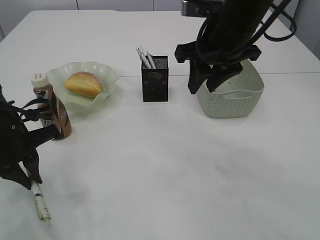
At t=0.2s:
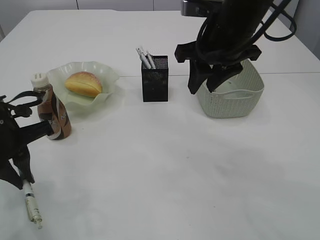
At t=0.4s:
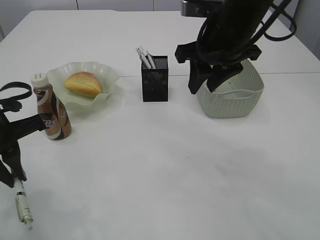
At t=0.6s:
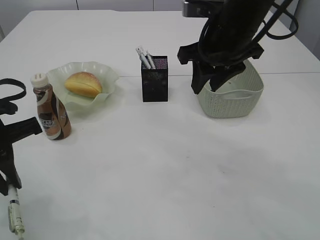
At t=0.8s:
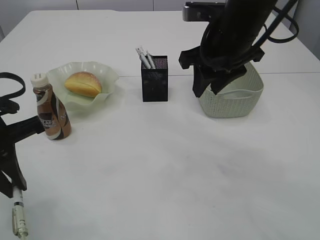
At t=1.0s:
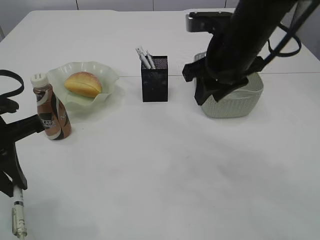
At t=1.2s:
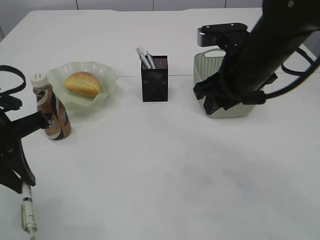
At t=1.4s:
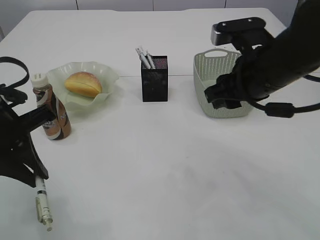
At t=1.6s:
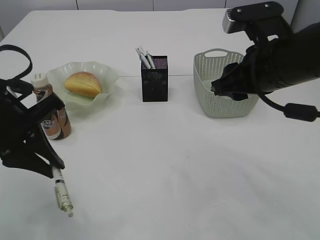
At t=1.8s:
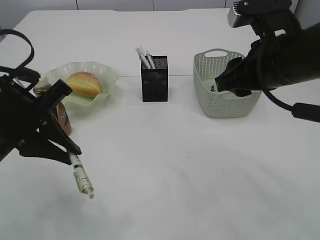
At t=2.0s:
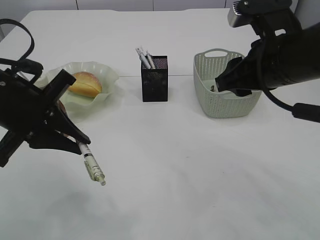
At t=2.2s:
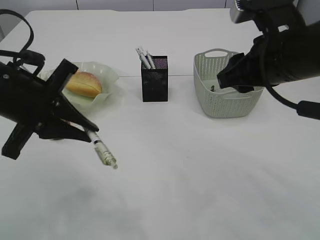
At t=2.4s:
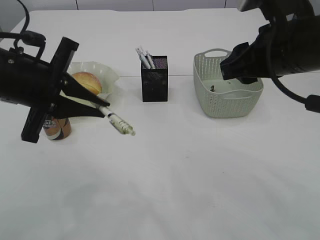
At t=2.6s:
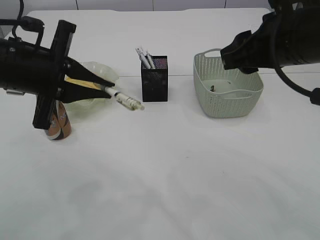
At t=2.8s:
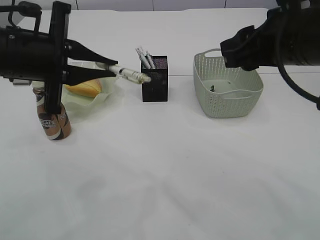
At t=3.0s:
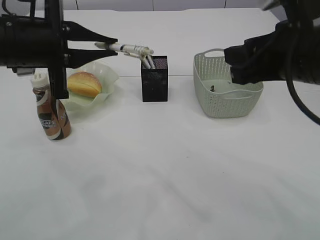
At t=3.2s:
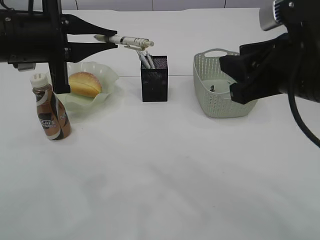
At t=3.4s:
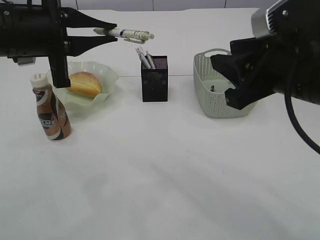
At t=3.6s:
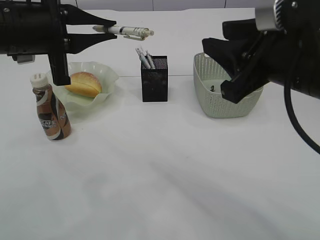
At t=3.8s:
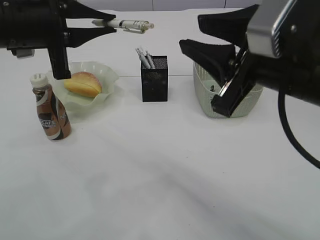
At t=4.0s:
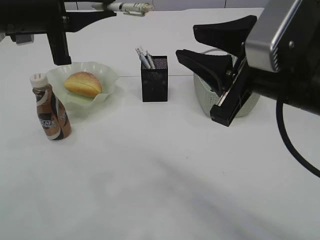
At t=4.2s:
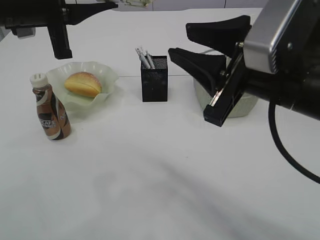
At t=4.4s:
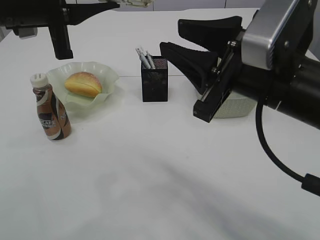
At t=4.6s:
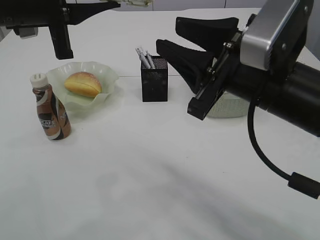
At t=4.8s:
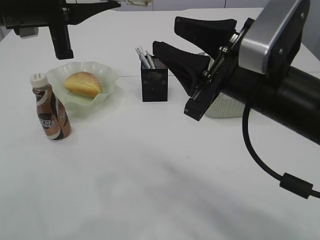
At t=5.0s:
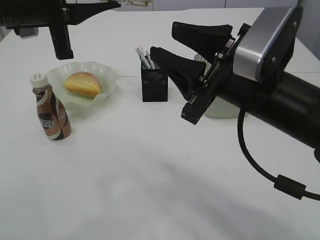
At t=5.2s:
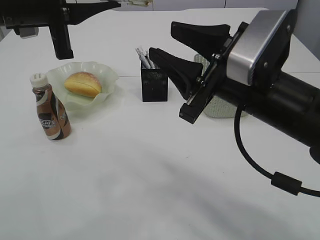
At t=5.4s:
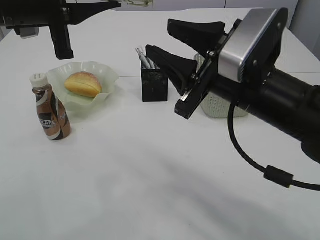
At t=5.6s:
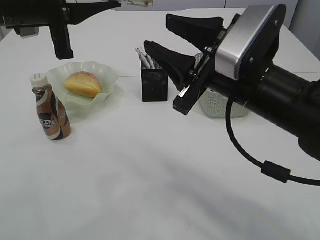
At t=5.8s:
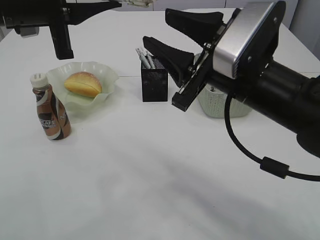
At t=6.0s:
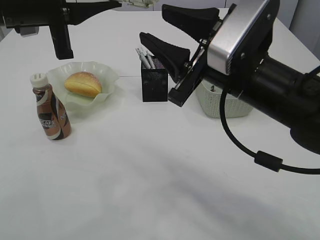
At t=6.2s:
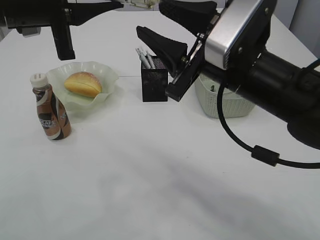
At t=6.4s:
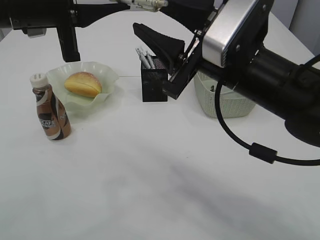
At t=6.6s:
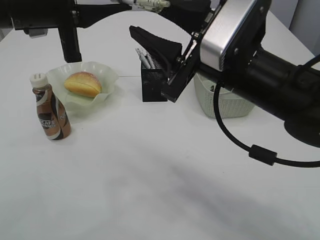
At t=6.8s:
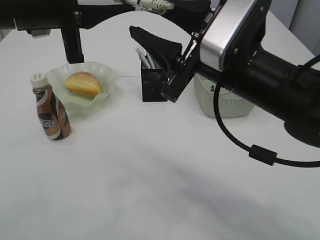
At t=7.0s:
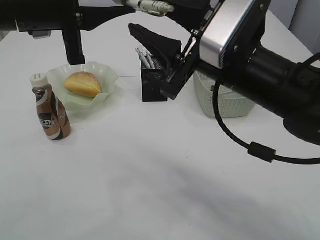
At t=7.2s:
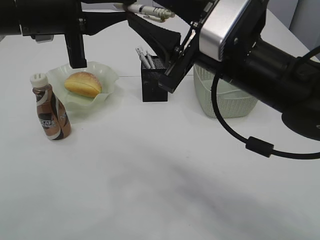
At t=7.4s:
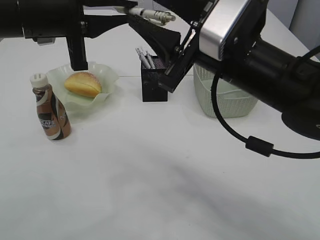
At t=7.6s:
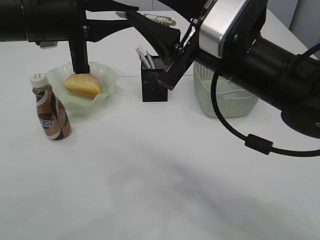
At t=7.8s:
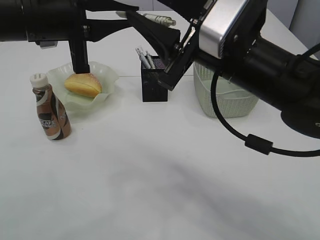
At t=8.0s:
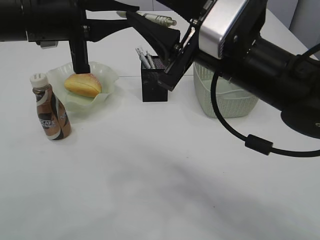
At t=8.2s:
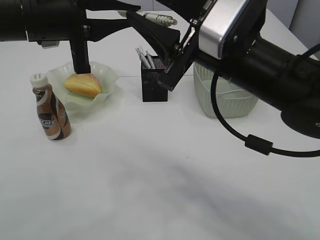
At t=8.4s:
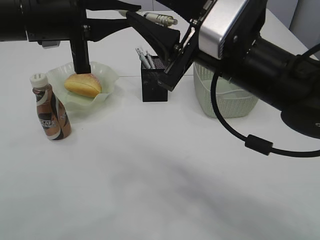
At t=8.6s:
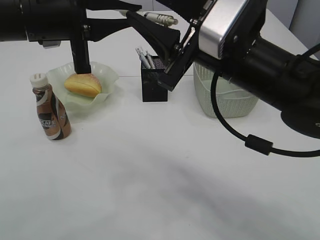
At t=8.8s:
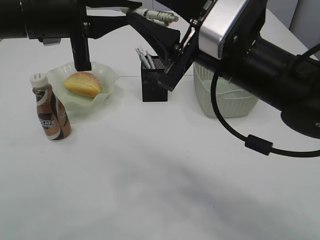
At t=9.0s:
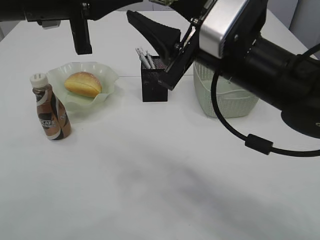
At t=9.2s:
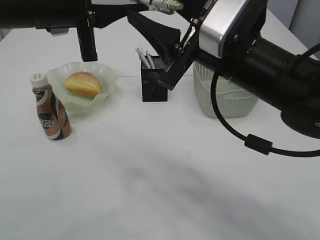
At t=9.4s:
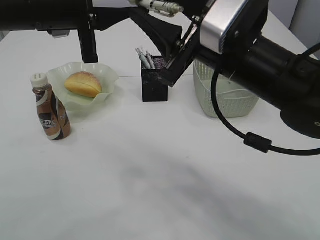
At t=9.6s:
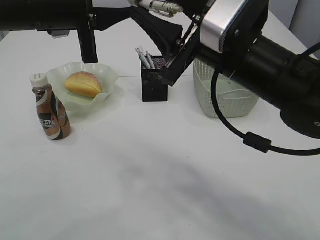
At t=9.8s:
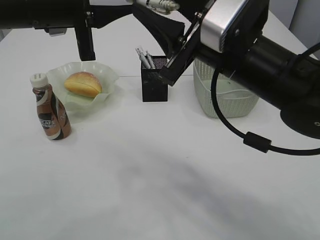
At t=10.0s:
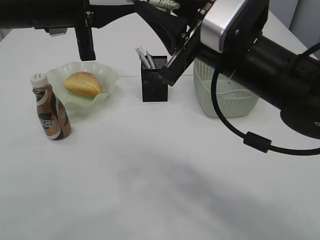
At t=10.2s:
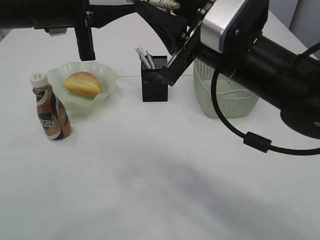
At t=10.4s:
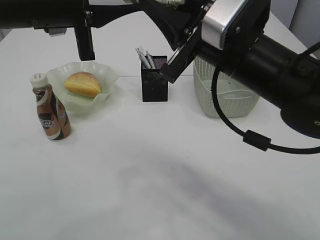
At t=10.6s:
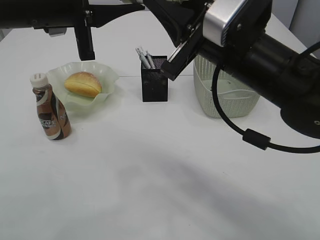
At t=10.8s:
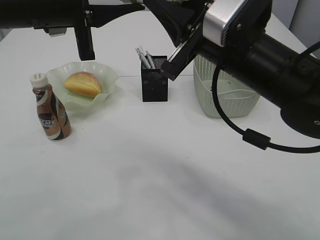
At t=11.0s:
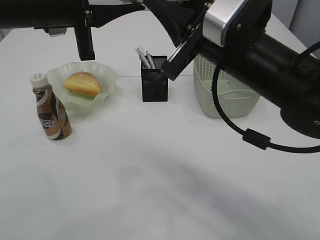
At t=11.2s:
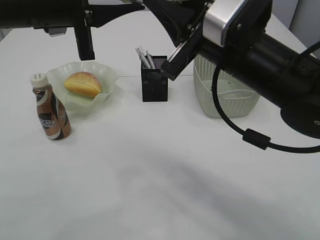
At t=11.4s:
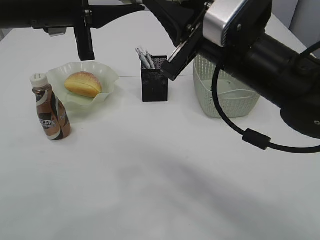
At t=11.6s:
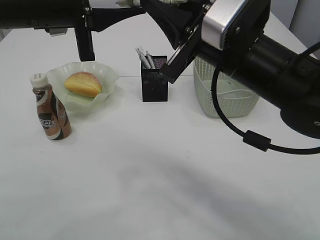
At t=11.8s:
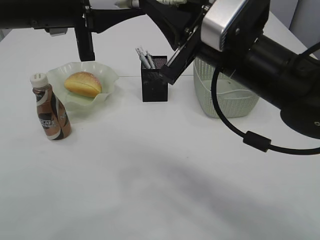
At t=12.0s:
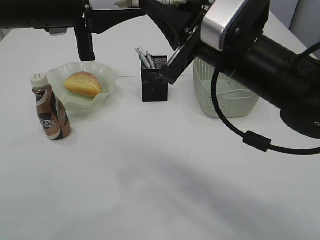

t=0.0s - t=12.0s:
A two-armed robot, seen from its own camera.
t=0.0s - t=1.6s: The right gripper moves backward, some 5 cm, while the left gripper heads upward, covering approximately 5 cm.
t=1.6s - t=3.0s: The left gripper is displaced upward by roughly 5 cm.
t=3.0s - t=4.4s: The right gripper changes place by about 5 cm.
t=4.4s - t=6.0s: There are only small adjustments of the grippers.
t=7.6s - t=9.0s: The grippers make only small movements.
t=9.0s - t=10.4s: The right gripper closes its fingers.
t=10.4s - t=12.0s: The two grippers keep their place.

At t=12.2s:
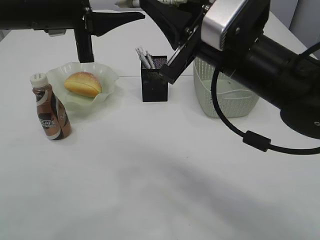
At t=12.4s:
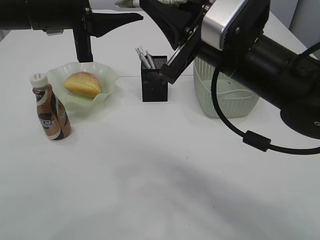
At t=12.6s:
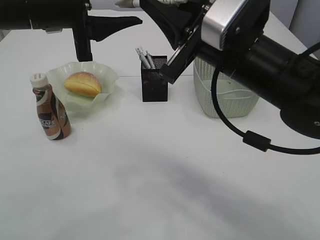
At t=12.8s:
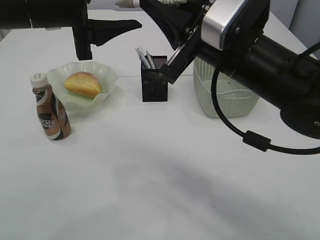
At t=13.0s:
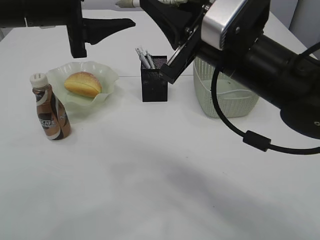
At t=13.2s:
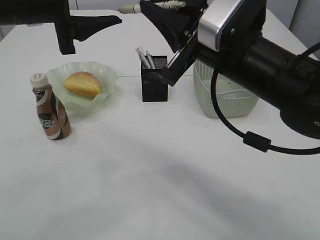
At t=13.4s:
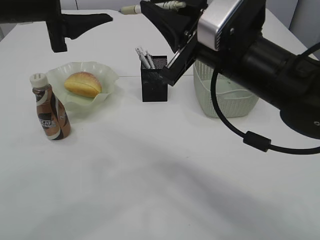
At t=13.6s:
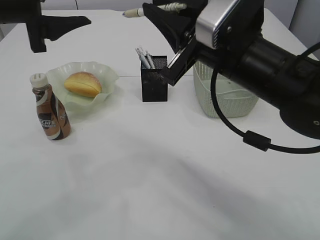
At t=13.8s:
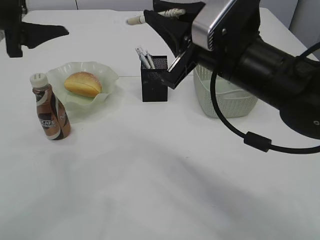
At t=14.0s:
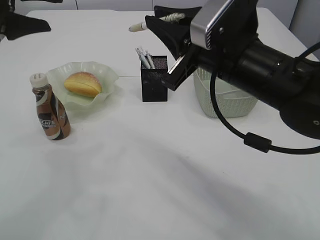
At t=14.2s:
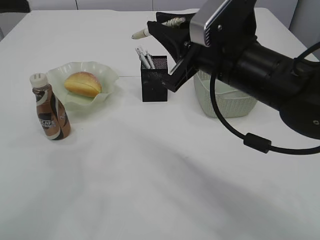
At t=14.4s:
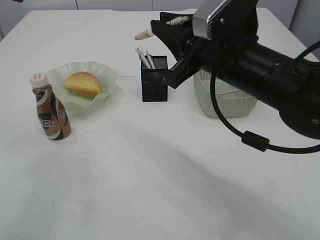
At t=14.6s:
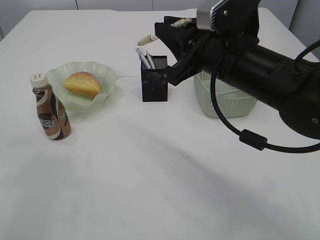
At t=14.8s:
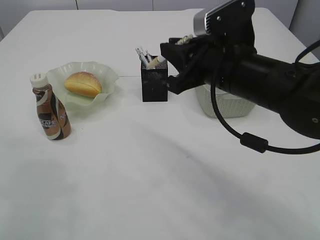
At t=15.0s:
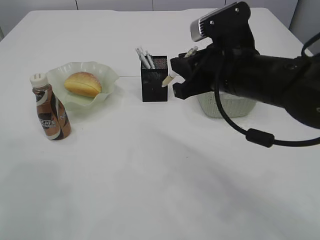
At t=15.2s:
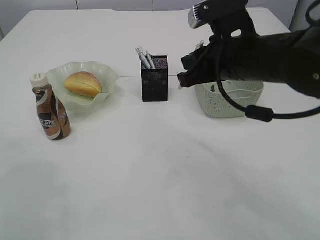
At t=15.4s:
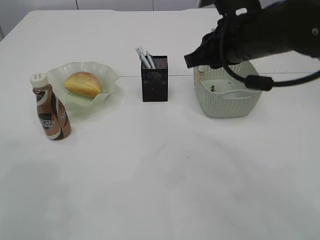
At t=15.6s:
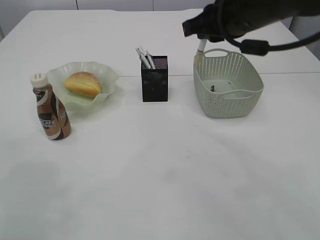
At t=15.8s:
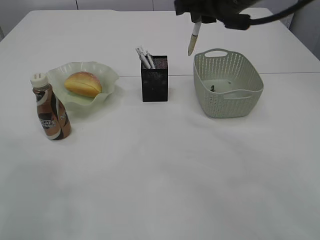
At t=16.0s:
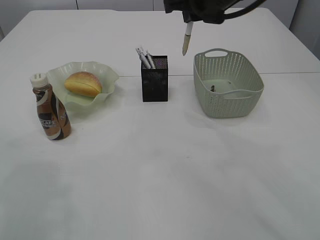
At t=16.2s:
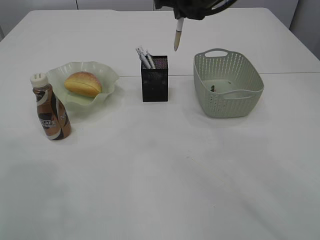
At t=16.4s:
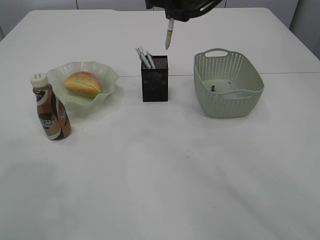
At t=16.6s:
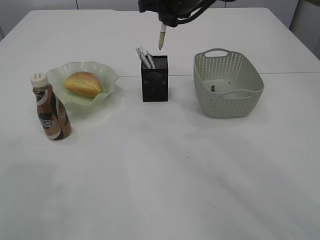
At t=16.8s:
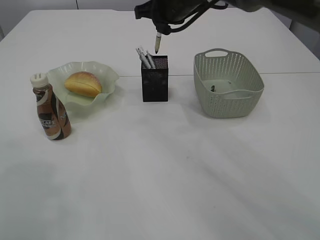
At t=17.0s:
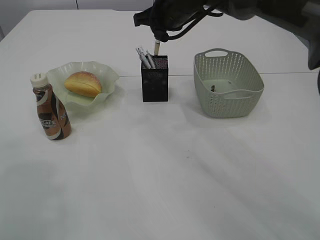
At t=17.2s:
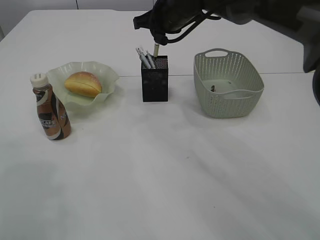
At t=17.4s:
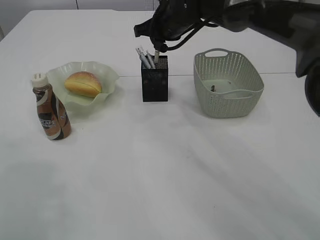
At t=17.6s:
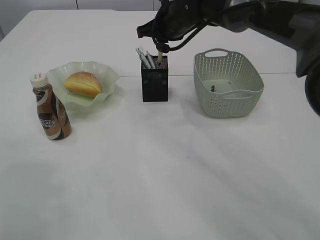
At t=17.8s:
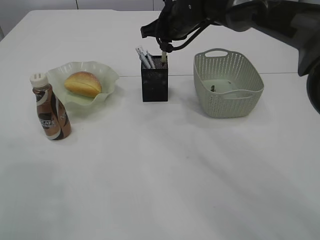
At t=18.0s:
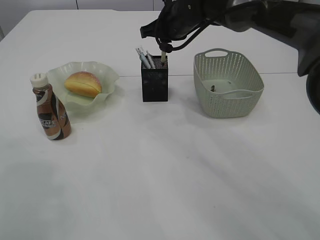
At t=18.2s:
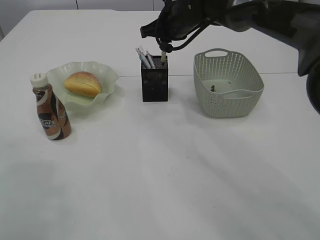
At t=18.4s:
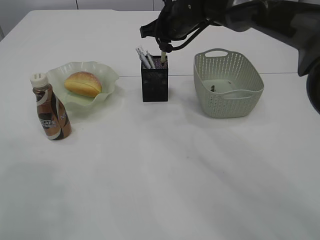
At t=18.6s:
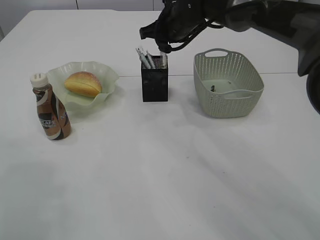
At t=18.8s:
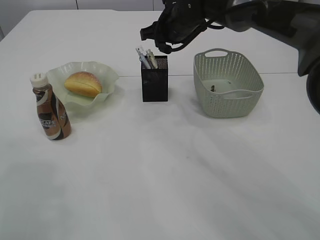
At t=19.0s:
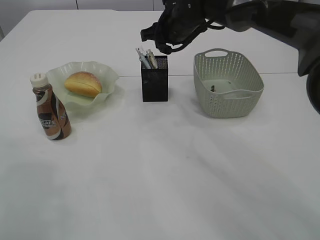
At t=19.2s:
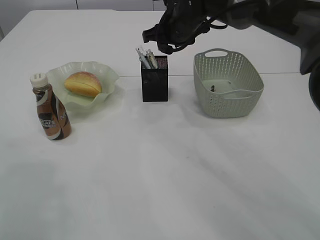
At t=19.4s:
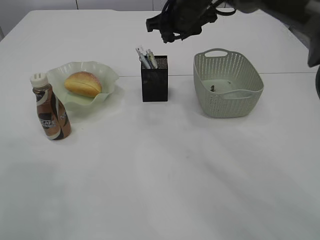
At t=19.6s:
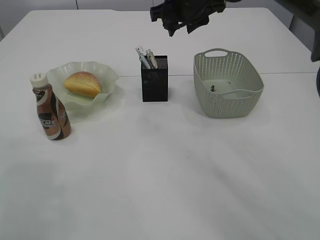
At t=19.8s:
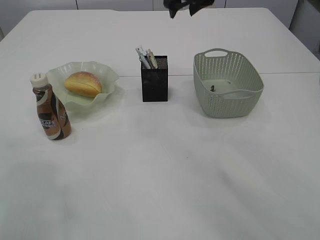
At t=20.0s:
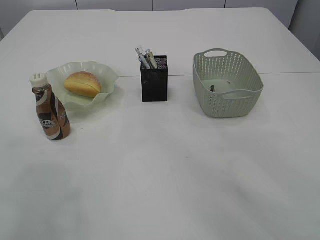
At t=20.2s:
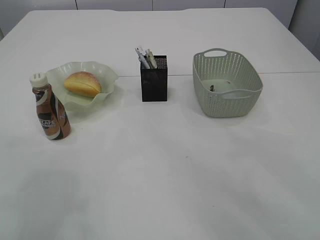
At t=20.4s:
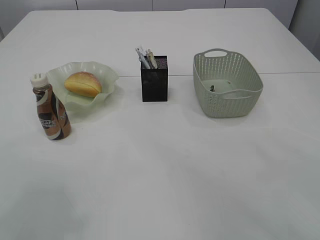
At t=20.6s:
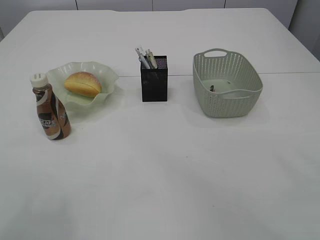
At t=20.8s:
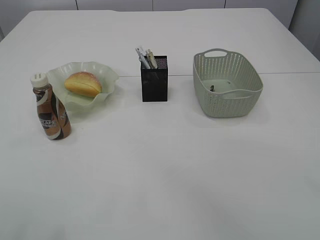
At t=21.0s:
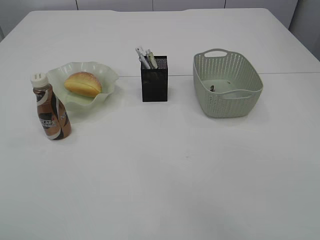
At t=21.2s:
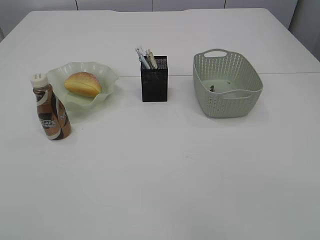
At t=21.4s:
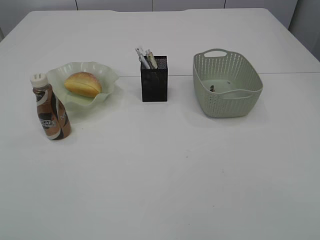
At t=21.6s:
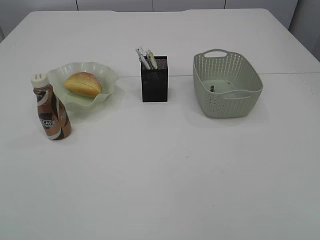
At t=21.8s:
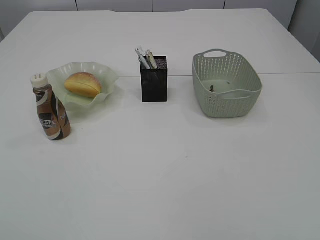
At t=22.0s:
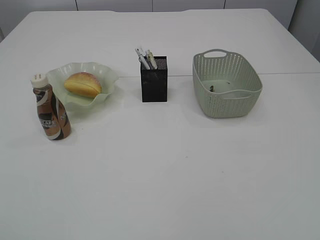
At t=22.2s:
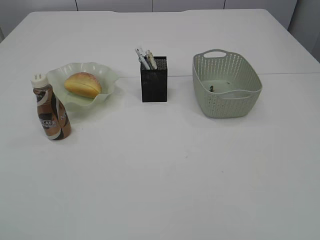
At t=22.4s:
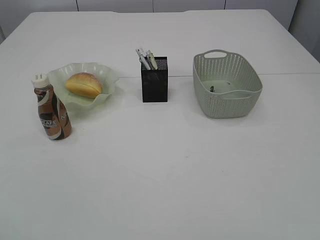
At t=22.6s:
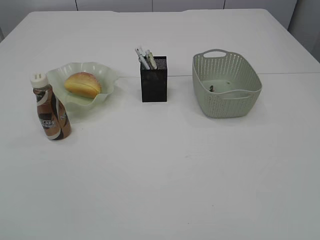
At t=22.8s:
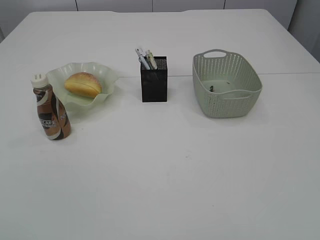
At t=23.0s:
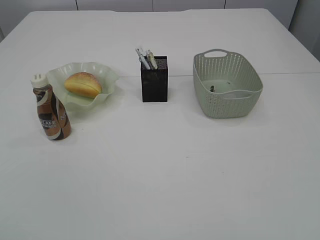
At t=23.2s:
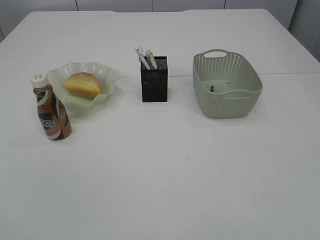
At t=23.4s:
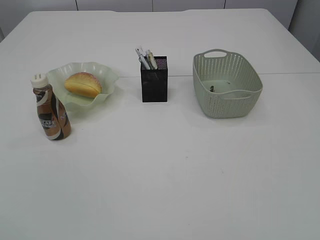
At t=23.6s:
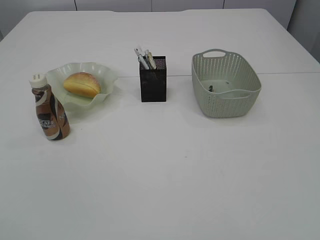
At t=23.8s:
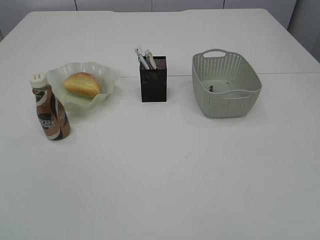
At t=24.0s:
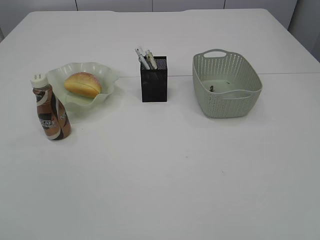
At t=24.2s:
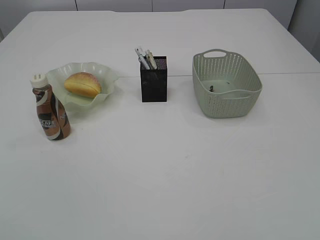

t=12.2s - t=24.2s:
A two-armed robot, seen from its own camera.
Step, t=13.8s - t=19.4s: Place the pen into the pen holder.
t=12.2s - t=13.8s: The left gripper heads to the left, covering about 10 cm, and opens its fingers.
t=13.8s - t=15.2s: The left gripper is displaced to the left and upward by about 10 cm.
t=15.2s - t=16.6s: The right gripper heads forward, covering about 15 cm.
t=16.6s - t=18.2s: The right gripper moves downward, approximately 5 cm.
t=18.2s - t=19.8s: The right gripper heads upward, covering approximately 10 cm, and opens.
t=19.8s - t=21.2s: The left gripper is displaced backward and upward by approximately 20 cm. The right gripper is displaced backward, upward and to the right by approximately 35 cm.
